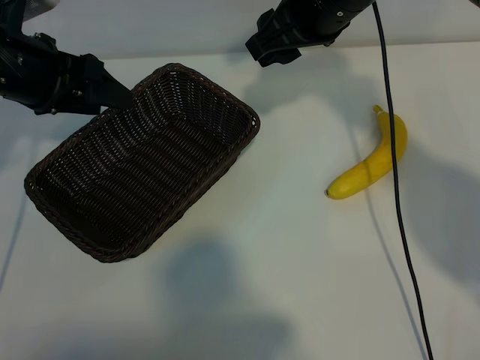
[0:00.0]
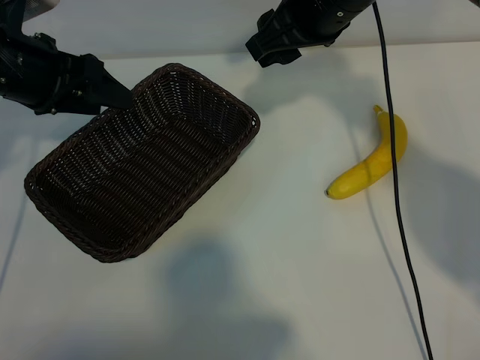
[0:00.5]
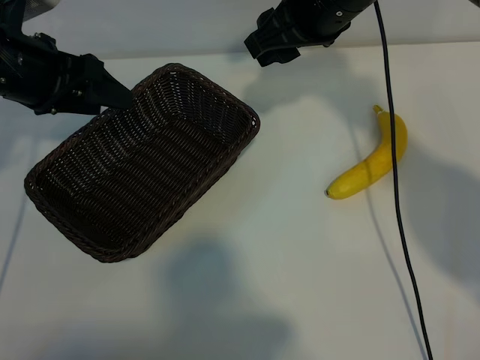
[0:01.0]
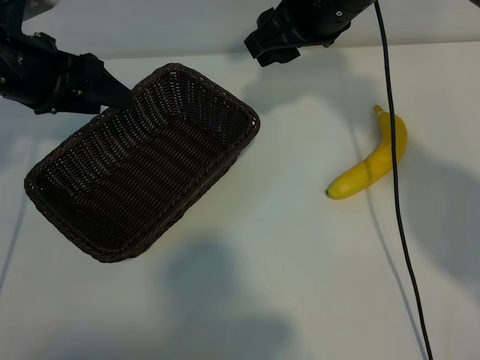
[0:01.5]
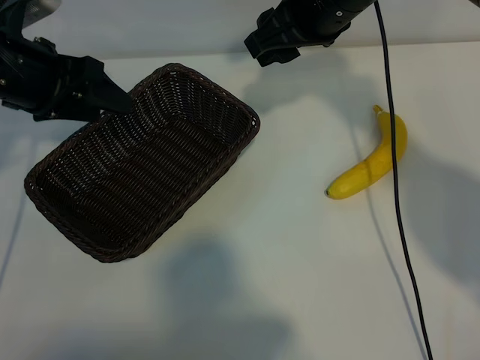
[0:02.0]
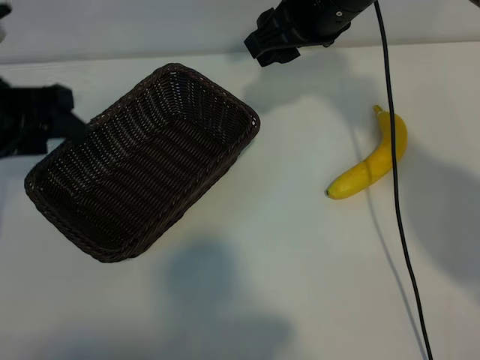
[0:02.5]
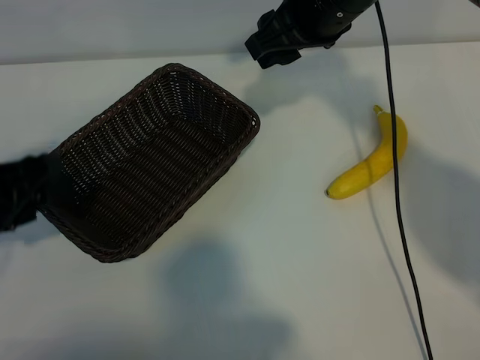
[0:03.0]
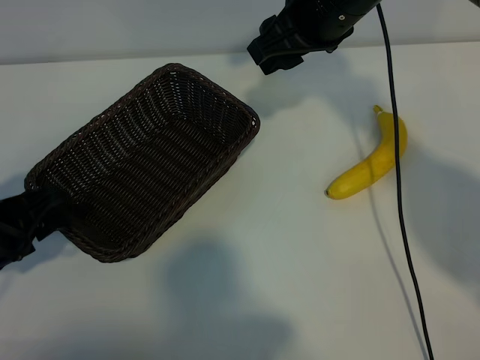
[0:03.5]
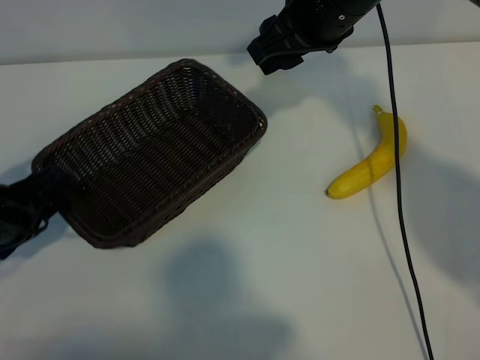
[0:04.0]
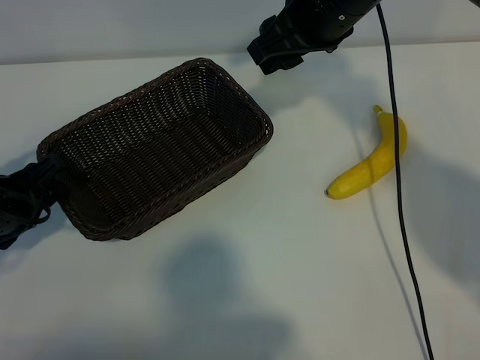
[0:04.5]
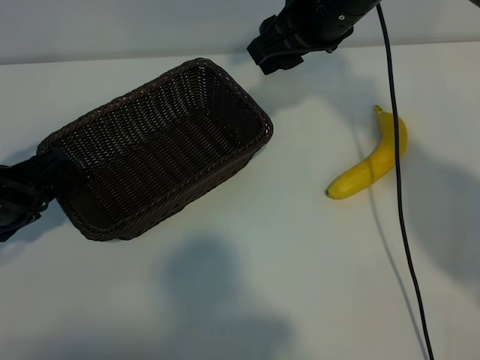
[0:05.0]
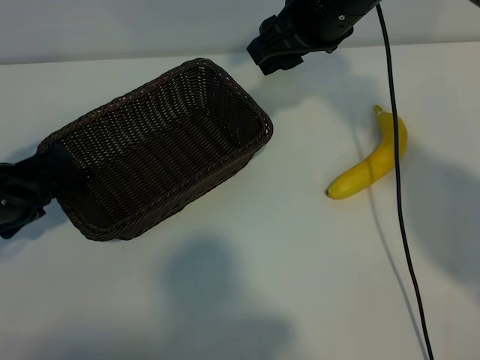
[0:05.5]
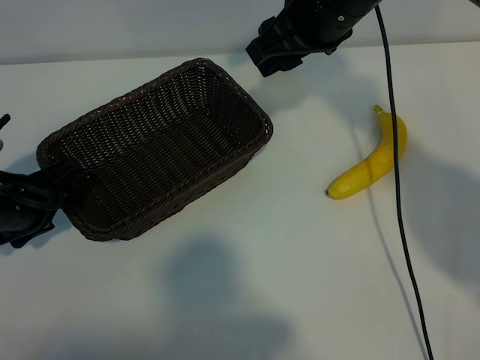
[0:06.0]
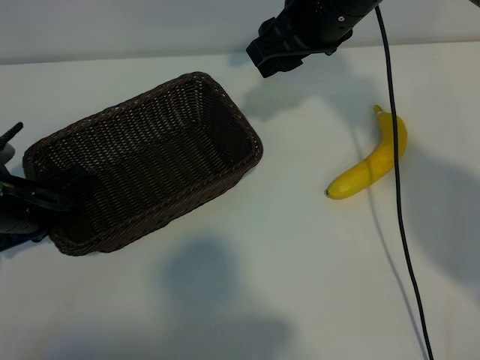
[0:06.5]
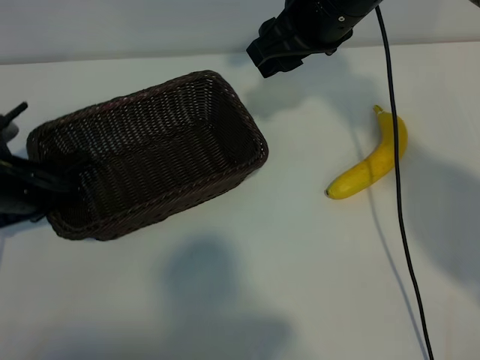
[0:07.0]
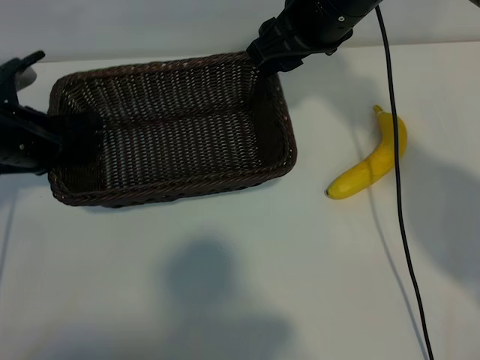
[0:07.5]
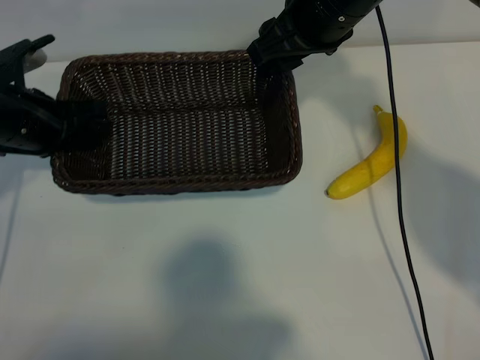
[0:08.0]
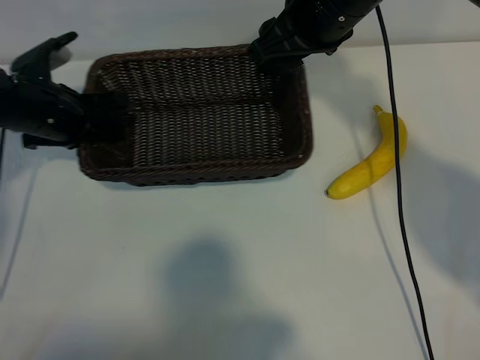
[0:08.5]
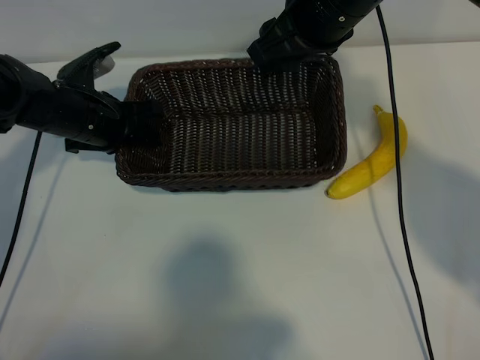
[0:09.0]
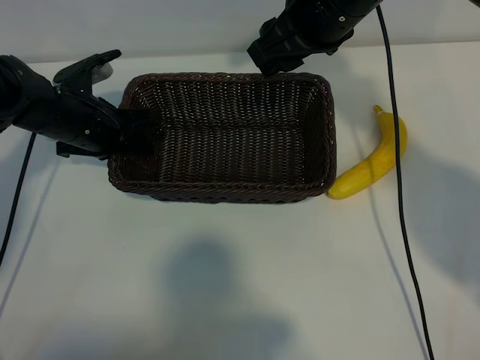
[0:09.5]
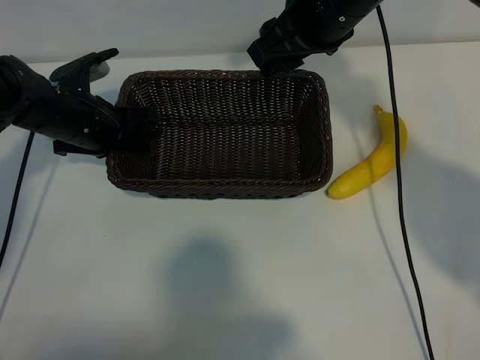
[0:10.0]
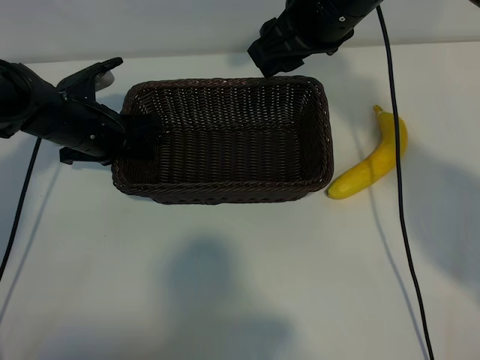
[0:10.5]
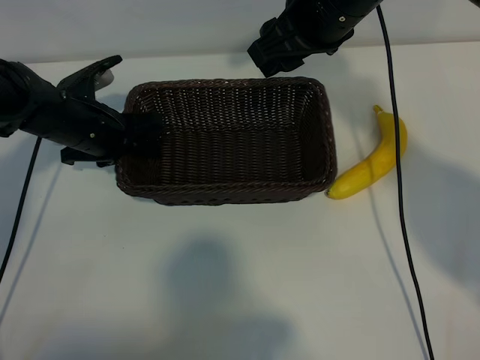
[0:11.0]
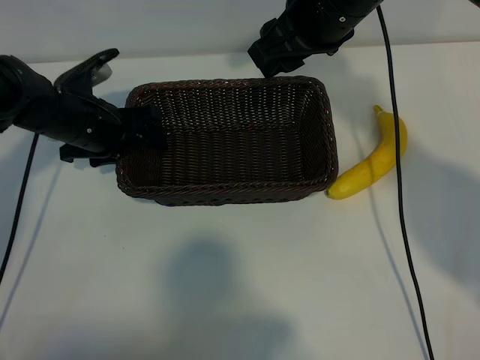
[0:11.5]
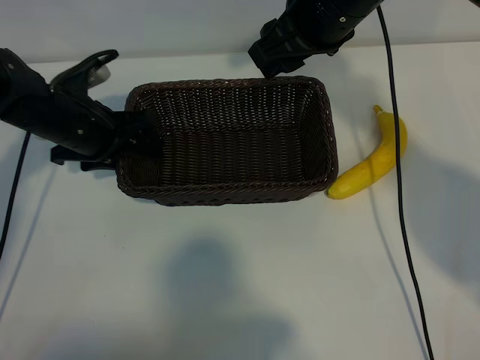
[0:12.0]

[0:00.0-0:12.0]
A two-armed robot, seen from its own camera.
Task of the whole recording: pick up the banana and put it into the basket.
Step, 0:01.0 to 0:06.5: Grasp the basket with the left gripper.
Step, 0:07.0 to 0:11.5: Place the basket in the center of the table with the left gripper.

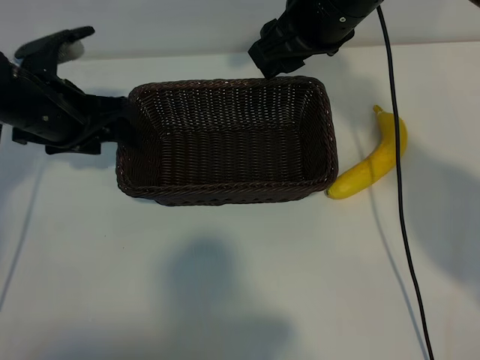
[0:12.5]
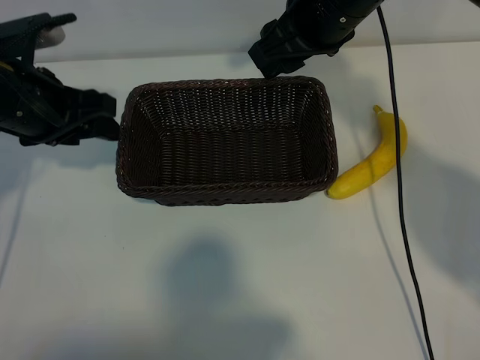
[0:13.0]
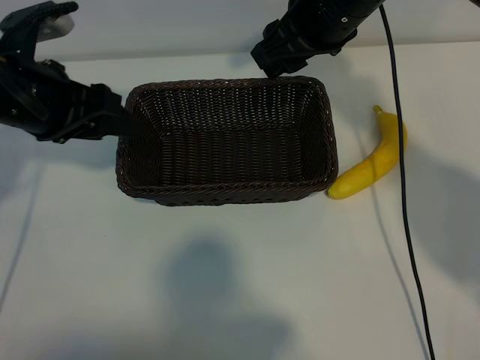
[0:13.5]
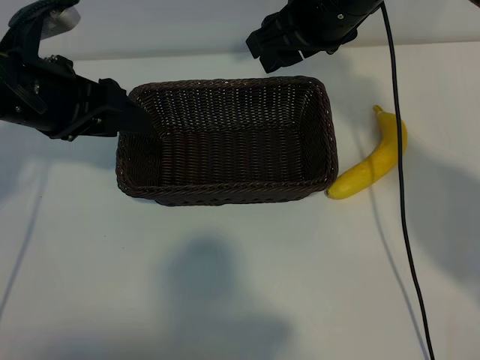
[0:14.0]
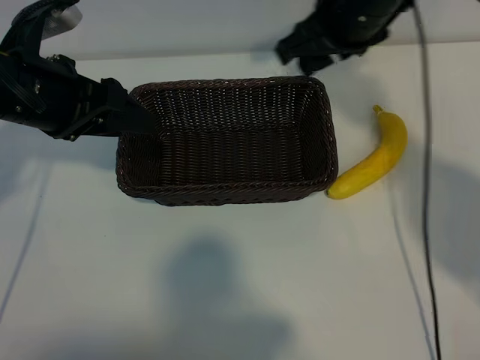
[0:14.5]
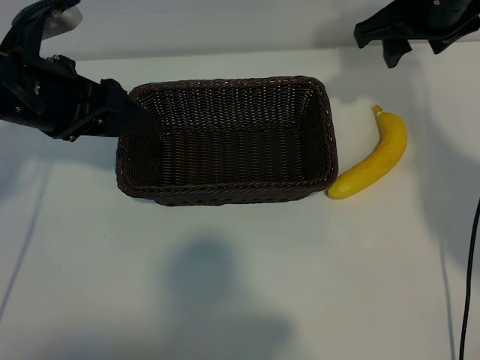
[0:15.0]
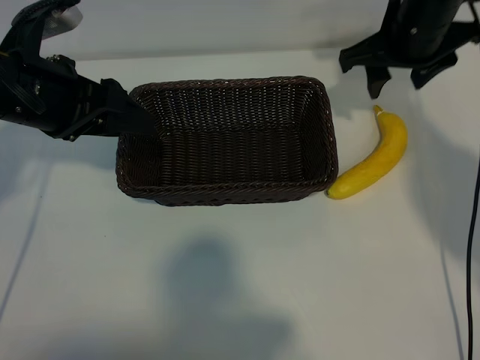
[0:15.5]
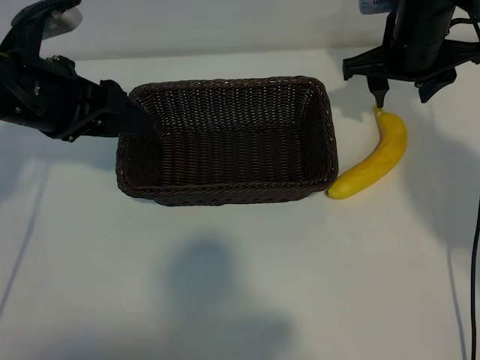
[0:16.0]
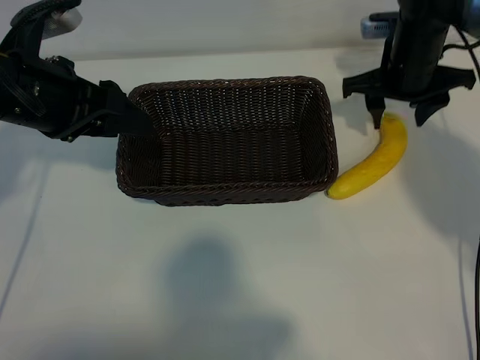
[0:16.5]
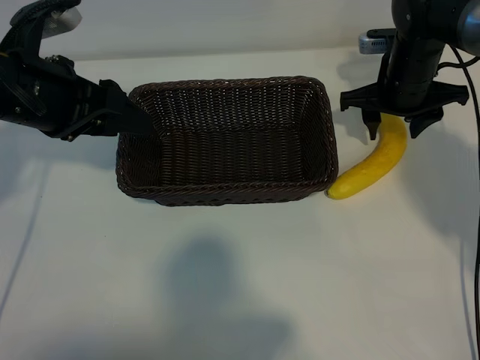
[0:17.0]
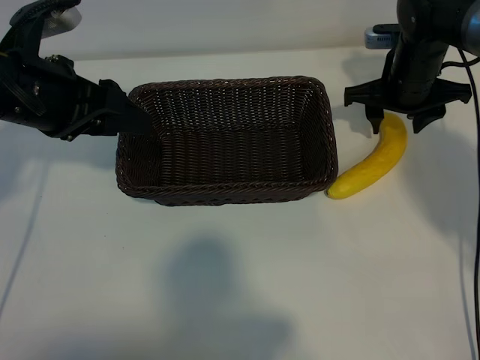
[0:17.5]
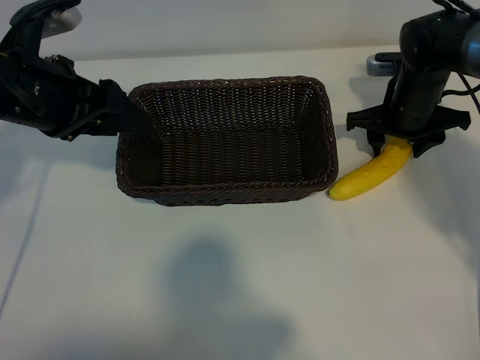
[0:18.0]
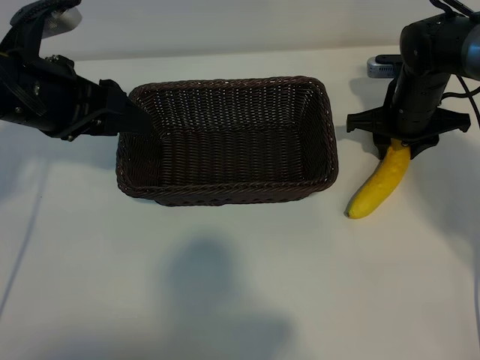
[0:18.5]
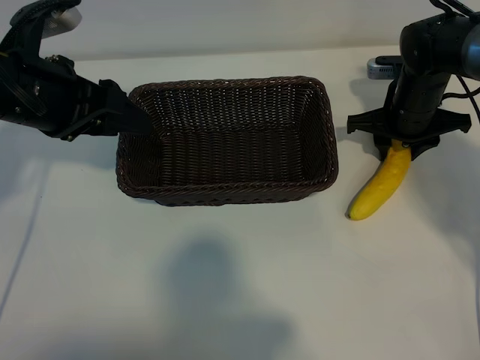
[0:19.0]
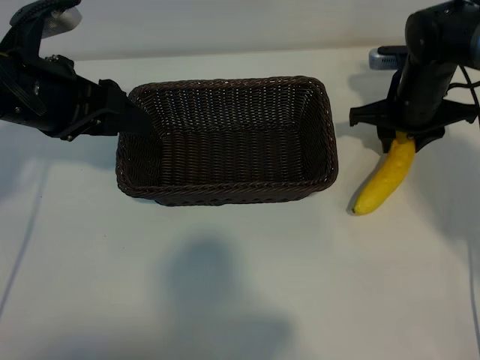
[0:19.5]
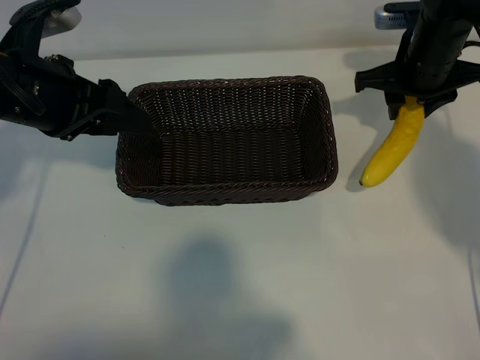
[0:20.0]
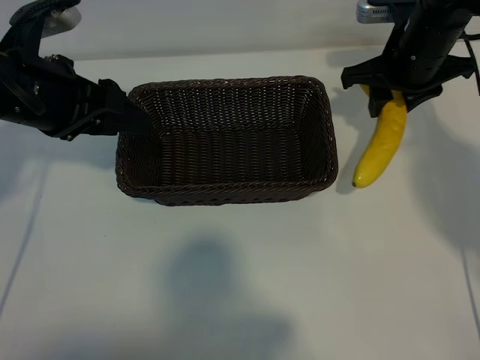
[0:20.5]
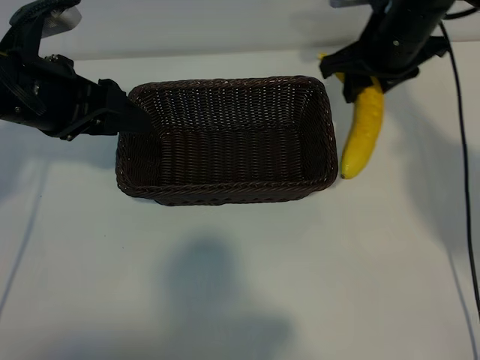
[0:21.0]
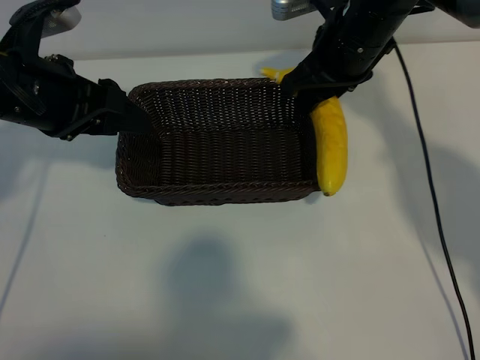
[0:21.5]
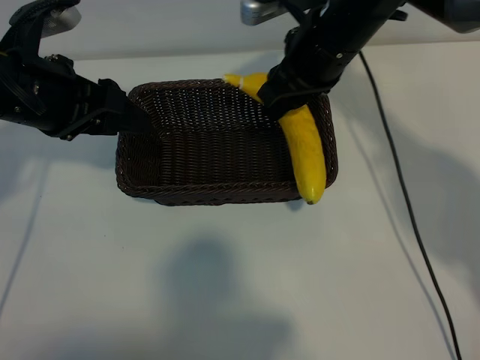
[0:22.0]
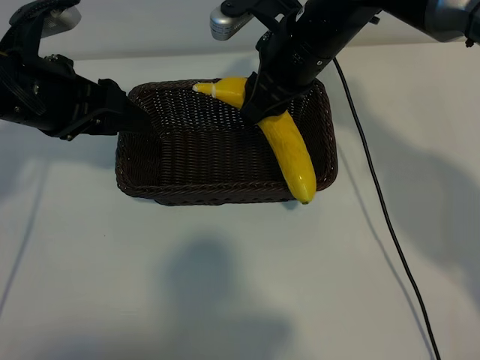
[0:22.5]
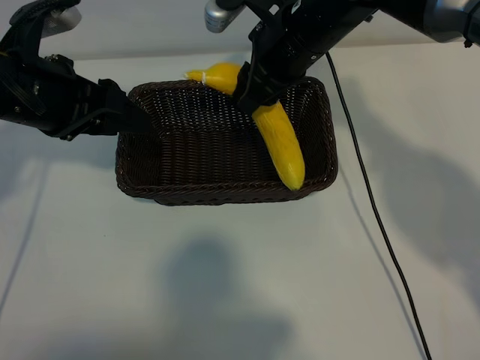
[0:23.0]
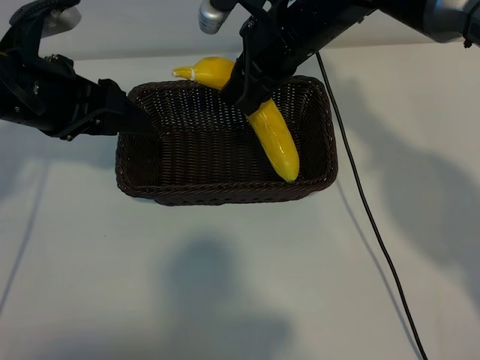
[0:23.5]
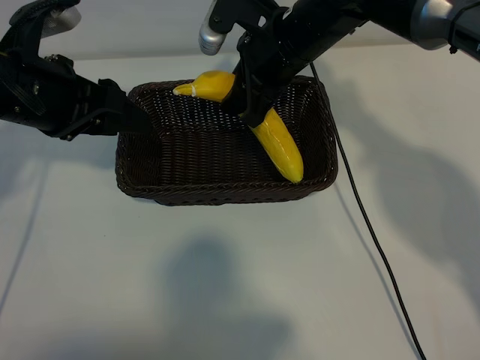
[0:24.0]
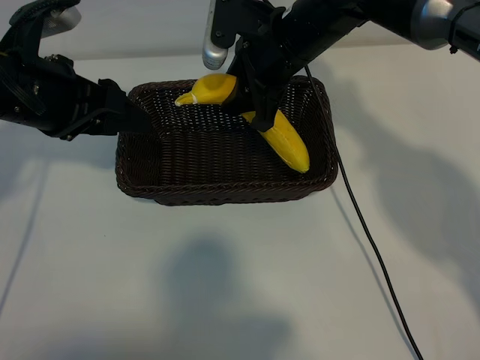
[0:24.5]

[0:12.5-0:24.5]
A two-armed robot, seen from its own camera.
Task of the whole recording: pick up the banana and put it into the basket.
Step, 0:12.5 to 0:18.5: Grasp the banana with right gripper.

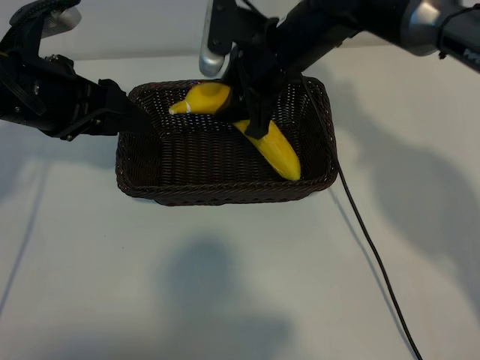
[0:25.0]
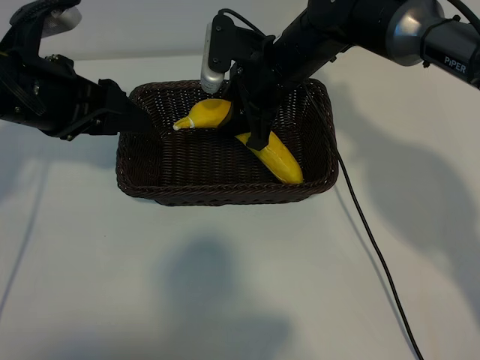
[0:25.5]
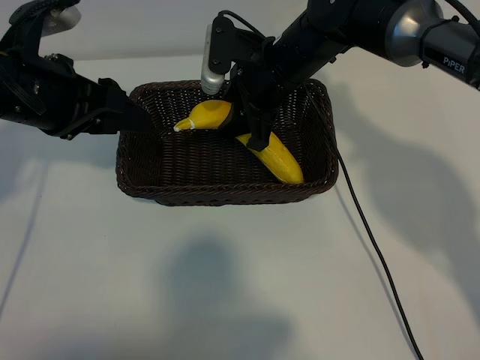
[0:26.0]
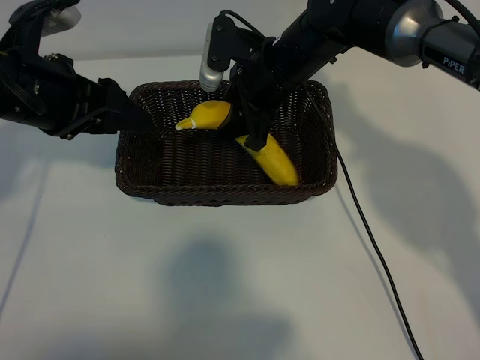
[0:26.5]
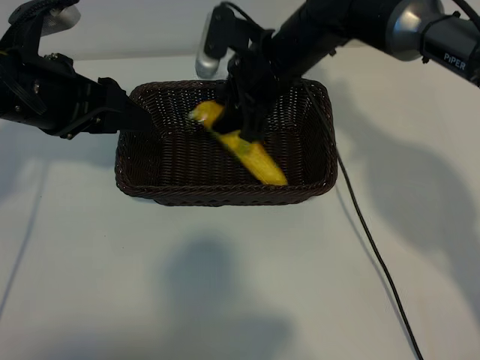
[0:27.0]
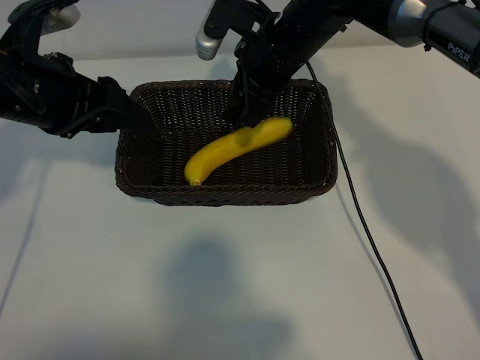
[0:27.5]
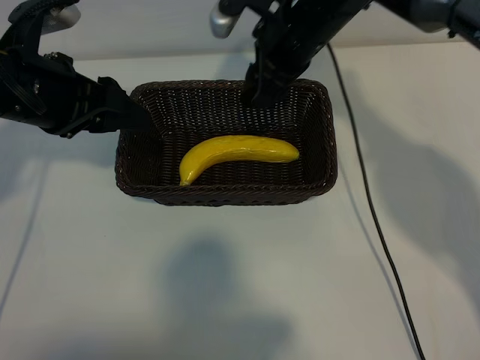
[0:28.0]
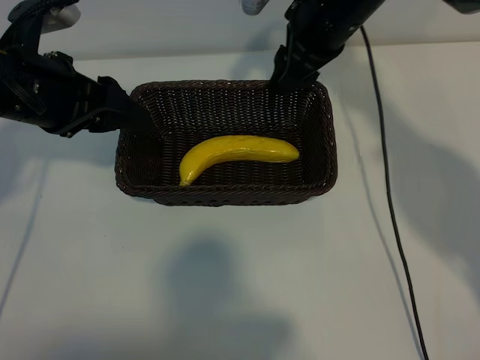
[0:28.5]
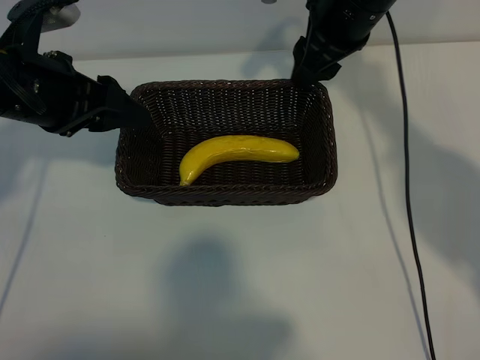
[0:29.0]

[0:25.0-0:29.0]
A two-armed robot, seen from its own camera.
Task of the whole recording: pick up the banana and put it into the basket.
Step, 0:25.0 to 0:27.0: Place the banana in the basket with right gripper.
